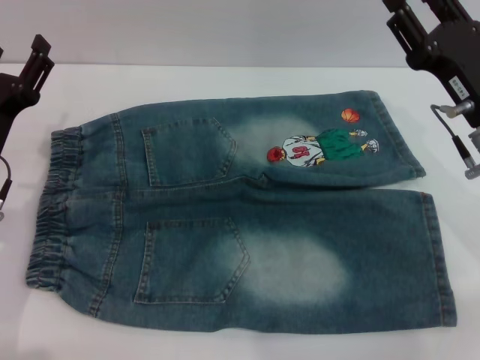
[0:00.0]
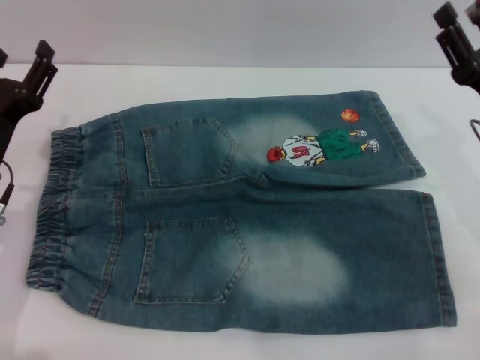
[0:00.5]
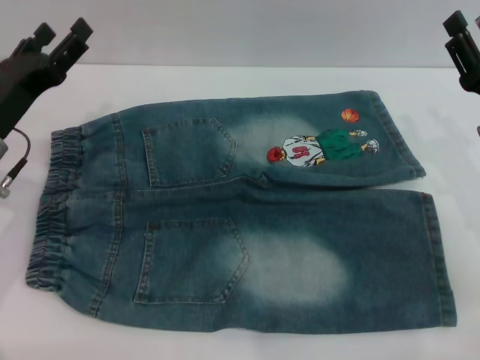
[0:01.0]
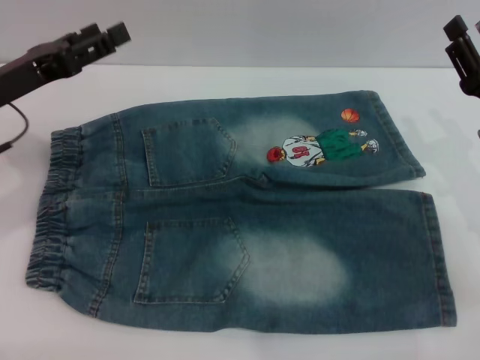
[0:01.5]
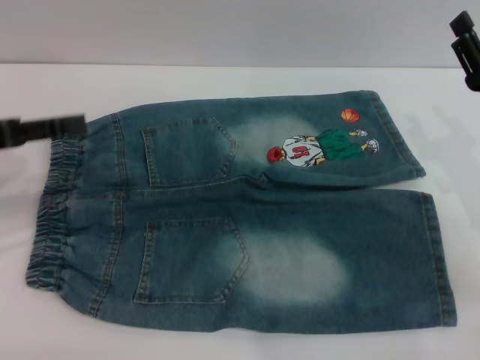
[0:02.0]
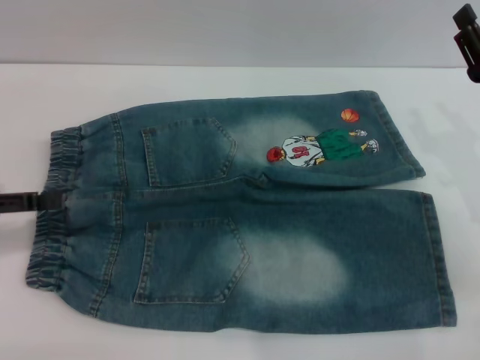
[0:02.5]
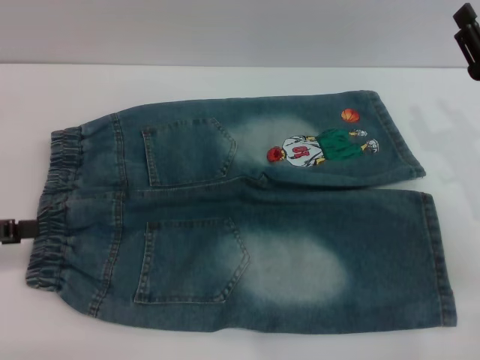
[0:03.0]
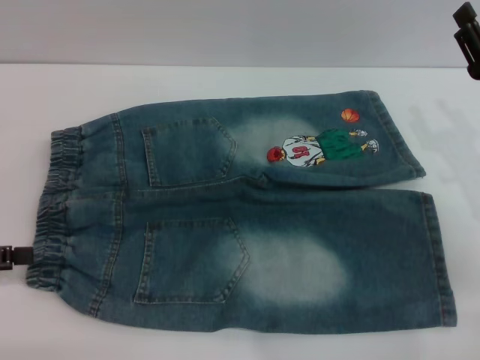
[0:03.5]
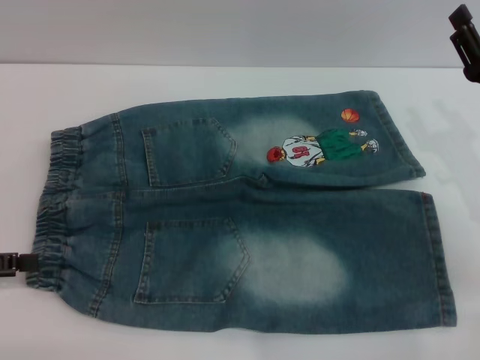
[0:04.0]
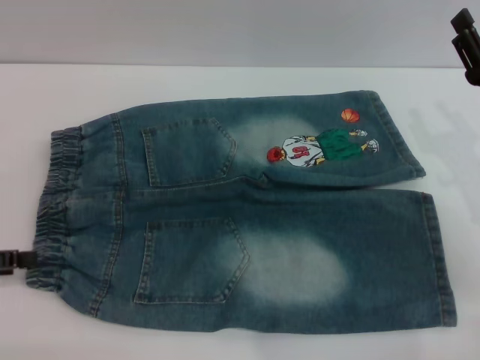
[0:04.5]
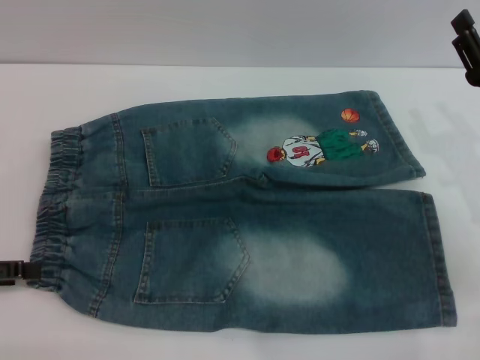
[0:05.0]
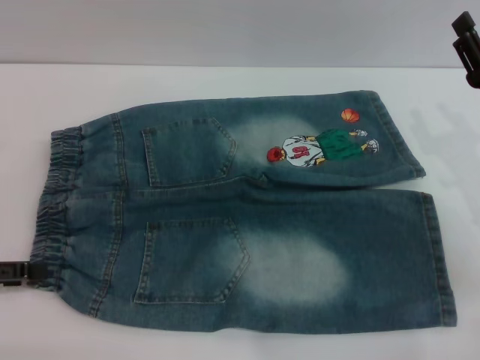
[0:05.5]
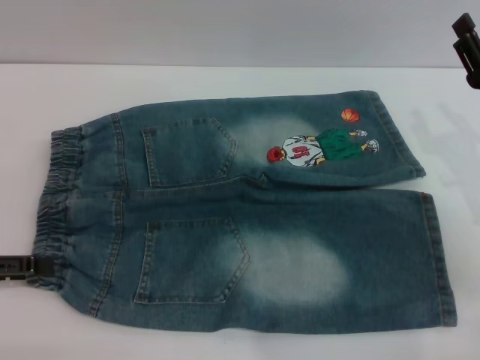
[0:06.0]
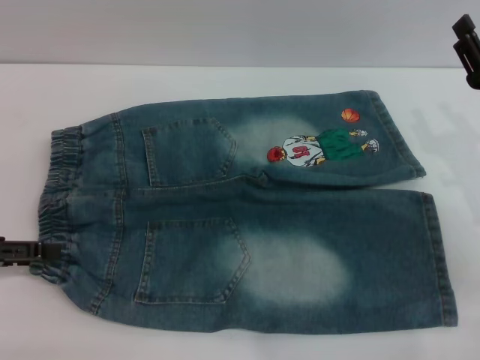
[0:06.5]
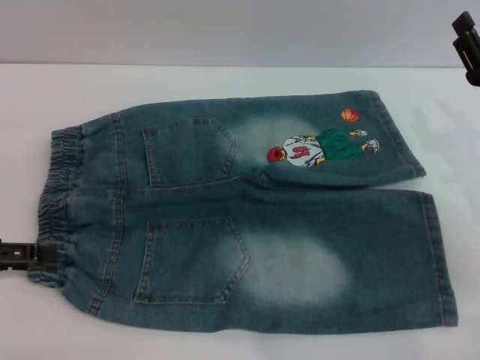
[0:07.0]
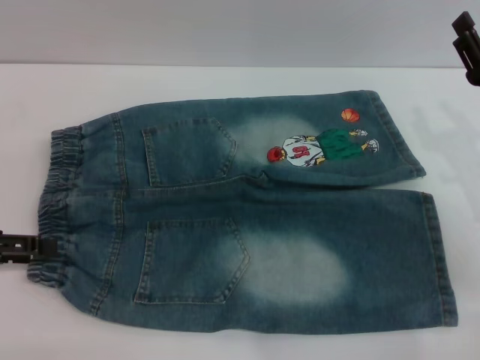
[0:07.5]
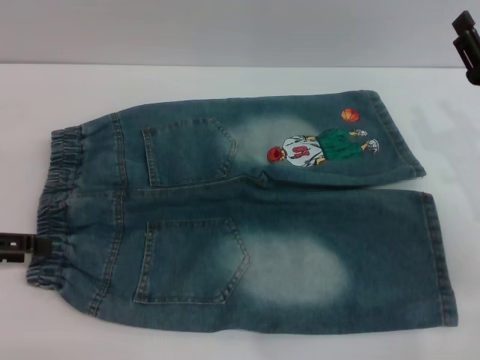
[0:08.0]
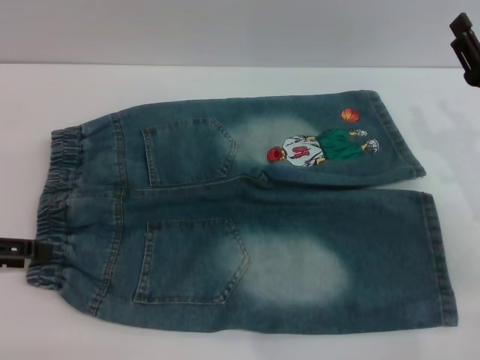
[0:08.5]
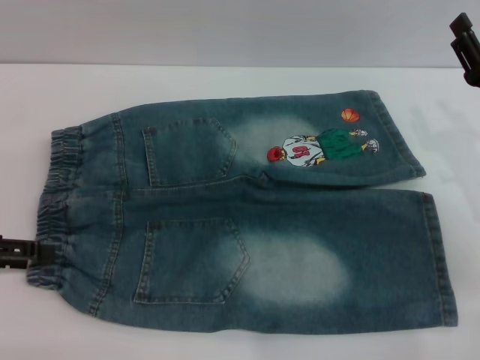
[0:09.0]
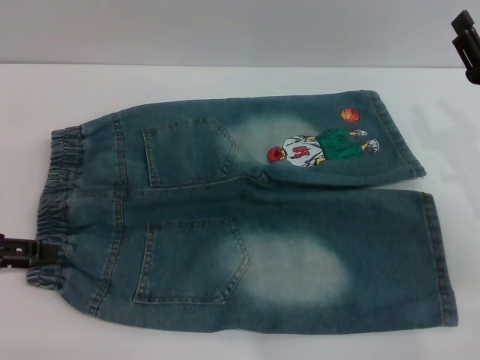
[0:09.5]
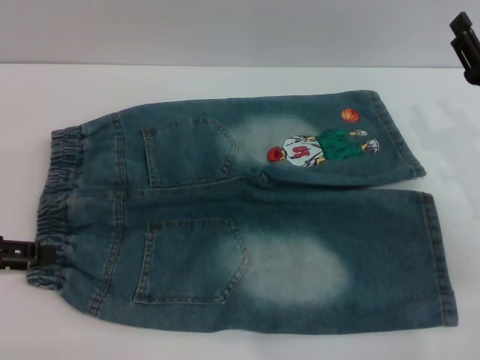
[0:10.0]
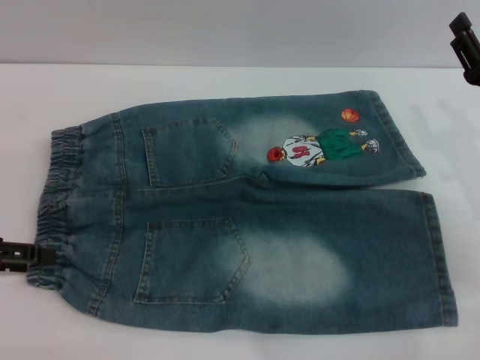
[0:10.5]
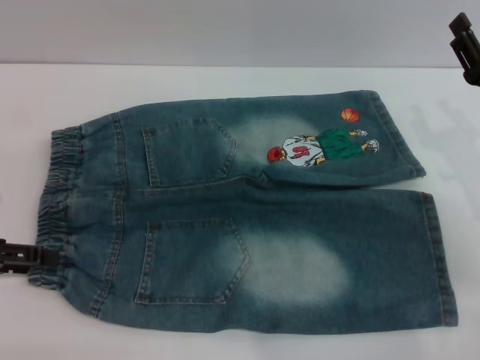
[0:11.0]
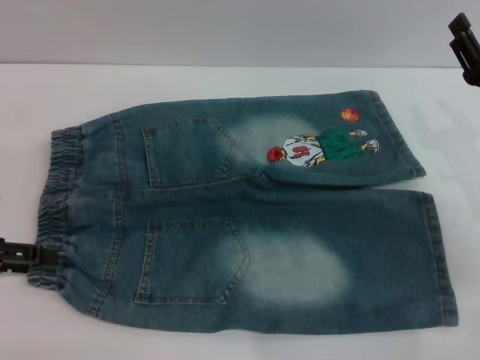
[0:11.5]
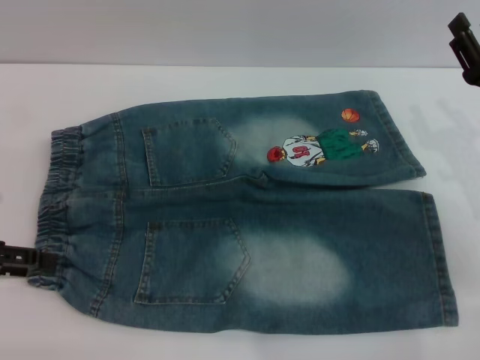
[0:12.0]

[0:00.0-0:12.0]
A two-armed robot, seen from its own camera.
0:00.0 to 0:02.0: The right gripper ends up about 5 cm from where it was. Meanwhile the left gripper shifts approximately 10 cm upward and to the left.
0:02.0 to 0:04.0: The left gripper shifts roughly 10 cm backward and downward.
0:06.0 to 0:08.0: The grippers stay close to where they were, moving slightly.
0:08.0 to 0:12.0: Both grippers stay about where they are.

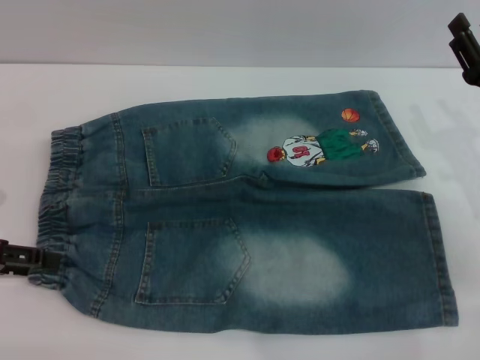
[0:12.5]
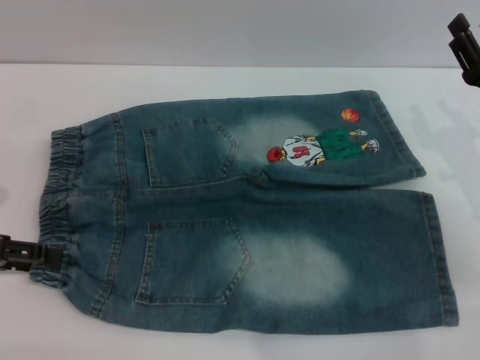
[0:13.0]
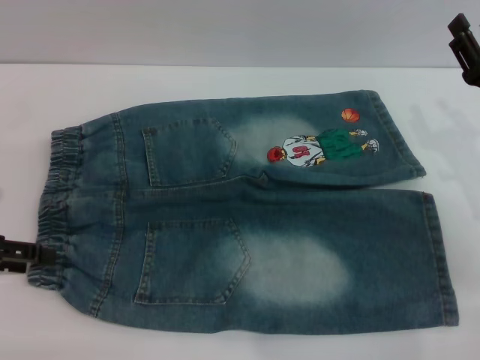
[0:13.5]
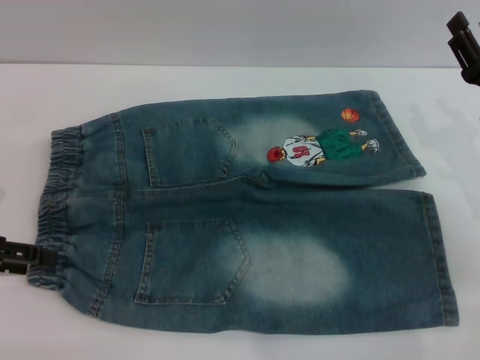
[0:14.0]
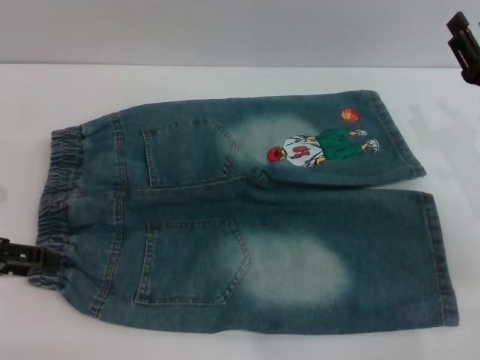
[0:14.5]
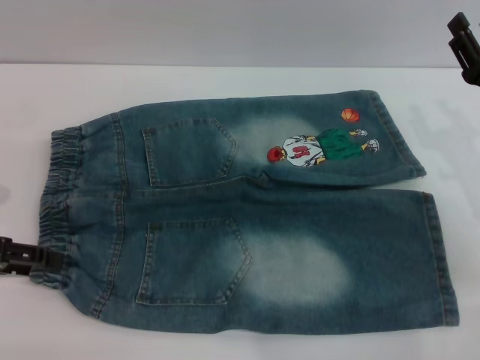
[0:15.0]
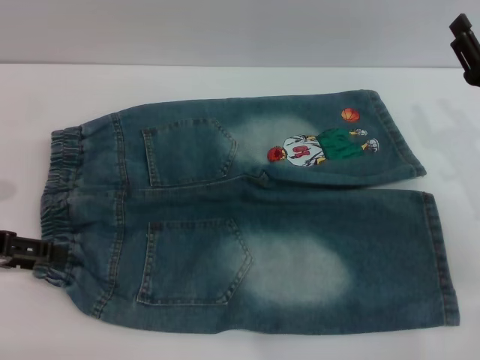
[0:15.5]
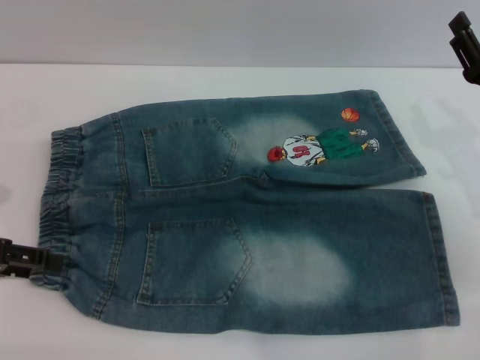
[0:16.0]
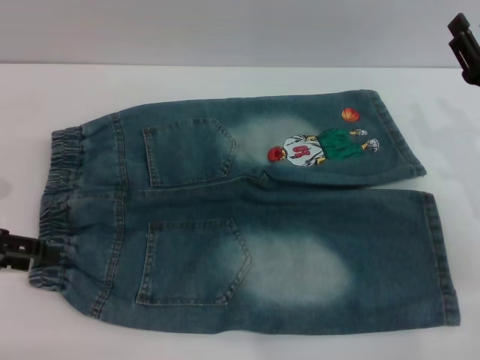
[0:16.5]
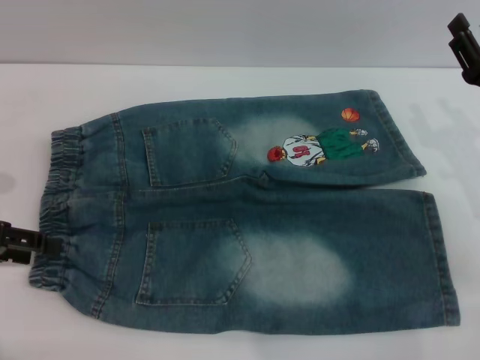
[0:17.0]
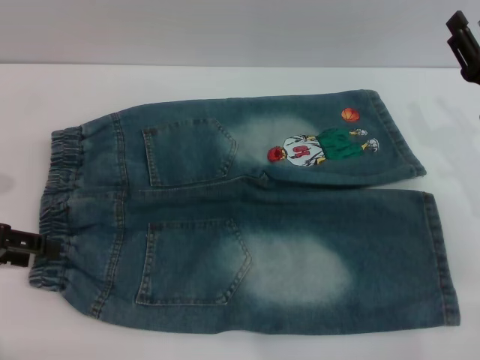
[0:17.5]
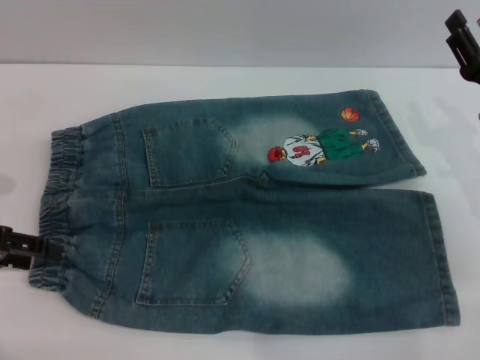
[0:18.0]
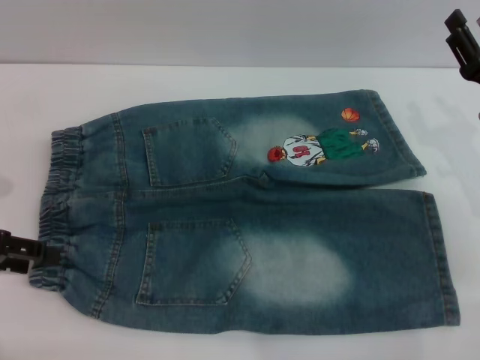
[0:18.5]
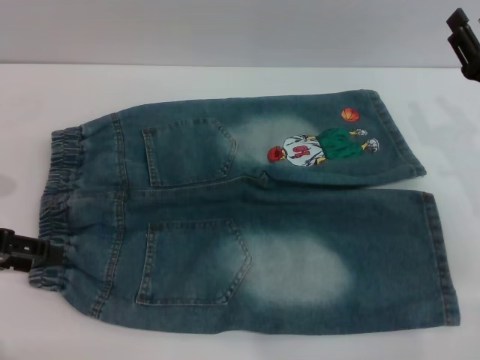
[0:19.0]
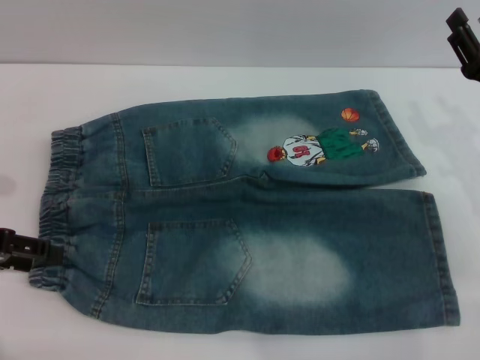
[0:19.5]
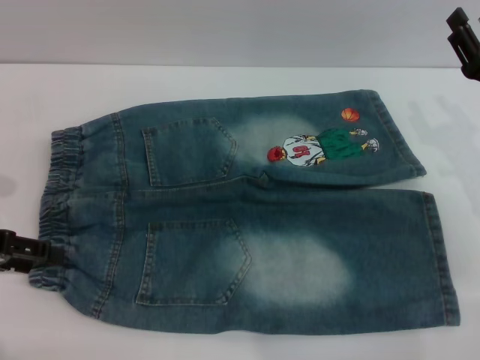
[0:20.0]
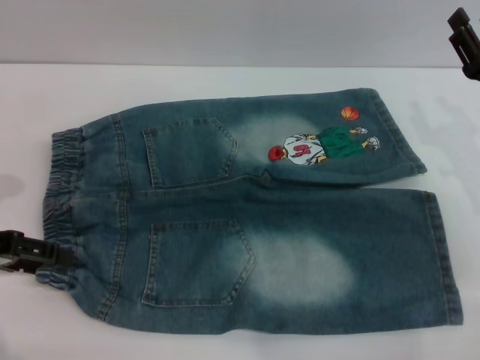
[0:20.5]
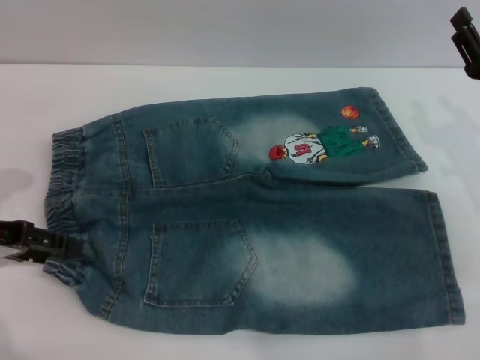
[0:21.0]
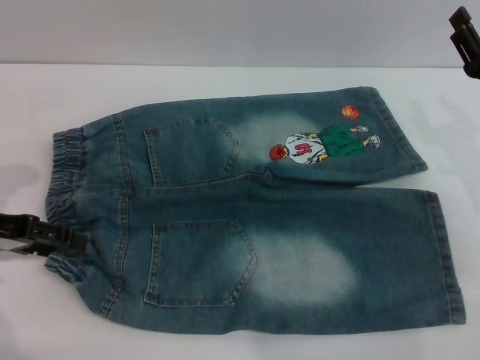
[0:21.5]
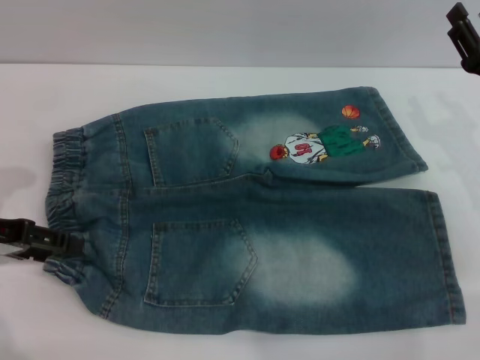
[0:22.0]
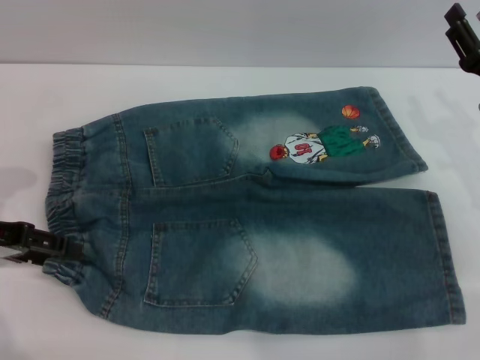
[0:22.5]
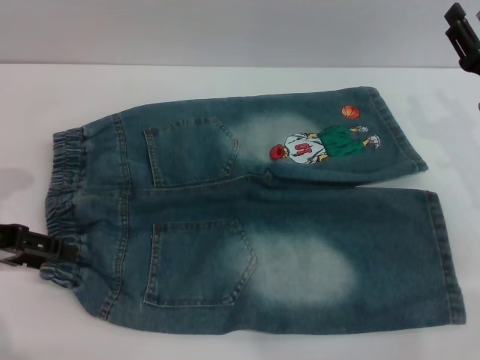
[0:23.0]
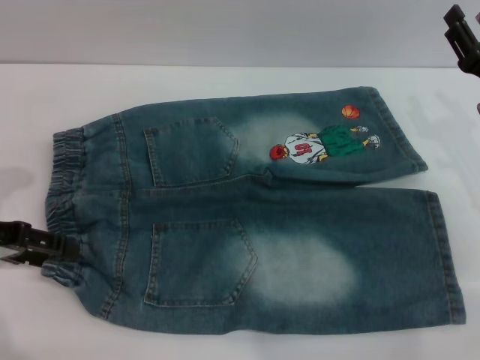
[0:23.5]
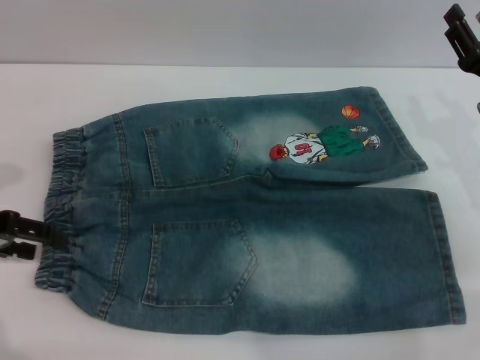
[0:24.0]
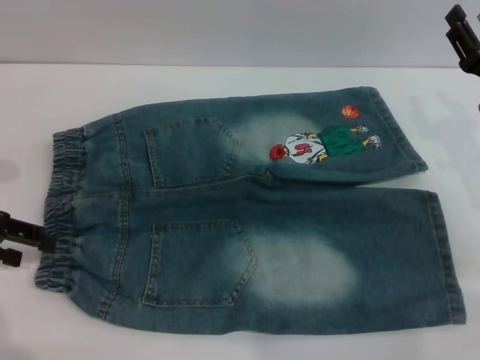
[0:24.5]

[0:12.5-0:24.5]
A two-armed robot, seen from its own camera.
0:12.5 to 0:14.5: Both grippers stay put.
0:14.5 to 0:16.5: The two grippers keep their place.
0:16.5 to 0:20.5: Both grippers stay about where they are.
0:20.5 to 0:24.5: The grippers stay close to where they were, moving slightly.

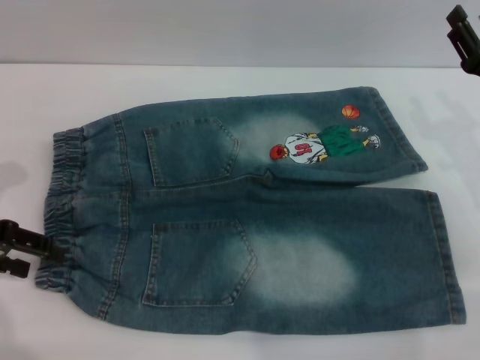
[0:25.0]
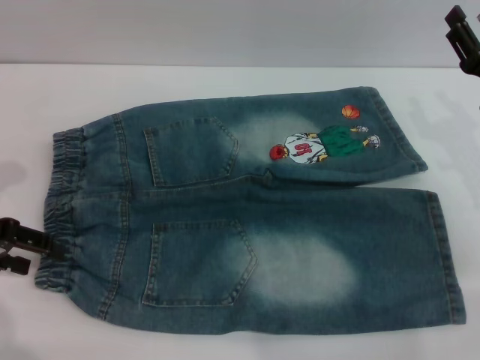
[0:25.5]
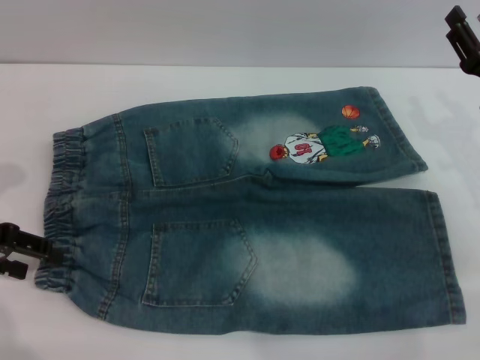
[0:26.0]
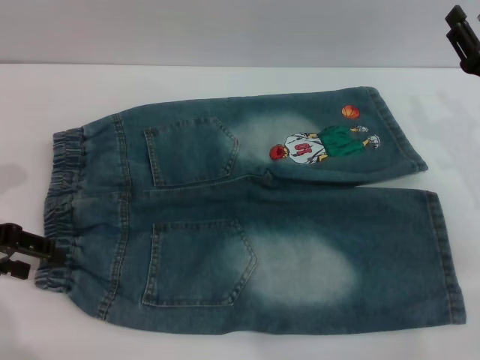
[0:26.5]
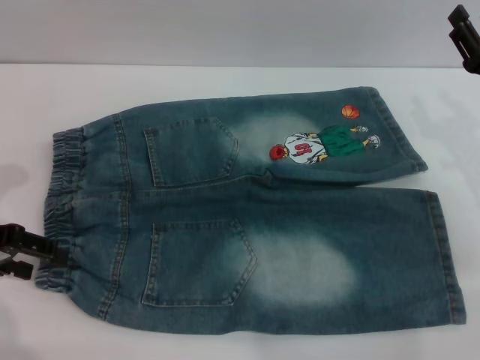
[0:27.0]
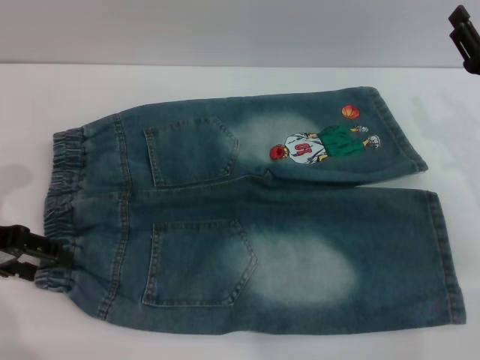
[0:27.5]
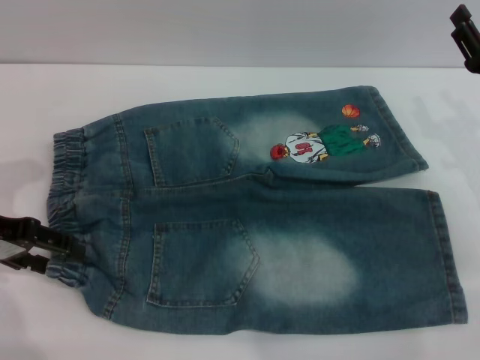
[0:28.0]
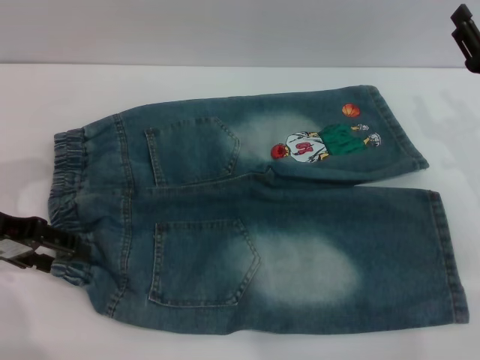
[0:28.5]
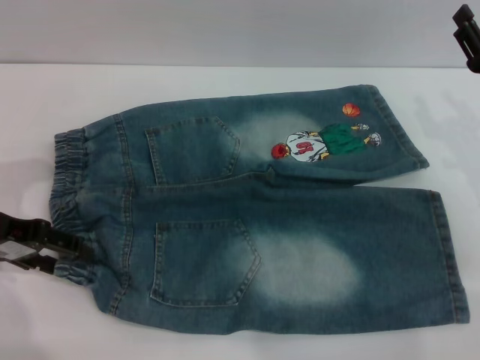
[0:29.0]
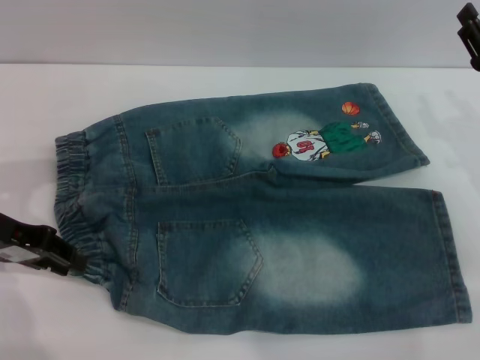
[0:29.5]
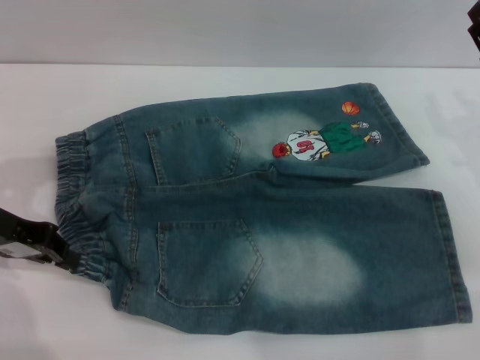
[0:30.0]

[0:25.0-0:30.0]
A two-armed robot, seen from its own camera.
0:25.0 to 0:27.5: Neither gripper changes place.
0:27.5 to 0:30.0: The left gripper closes its fingers.